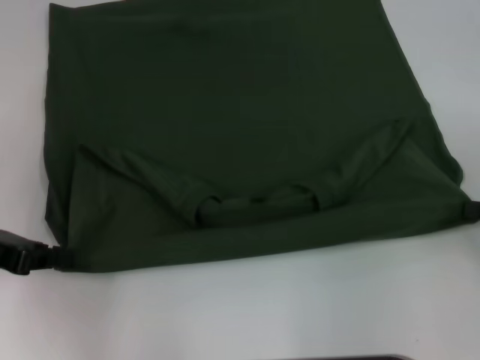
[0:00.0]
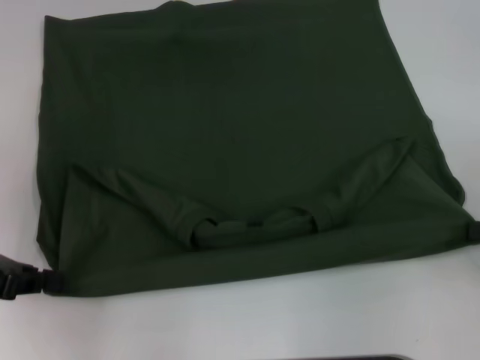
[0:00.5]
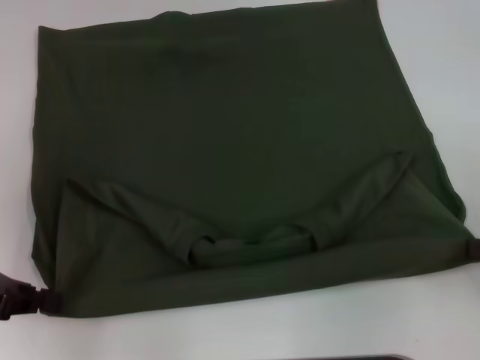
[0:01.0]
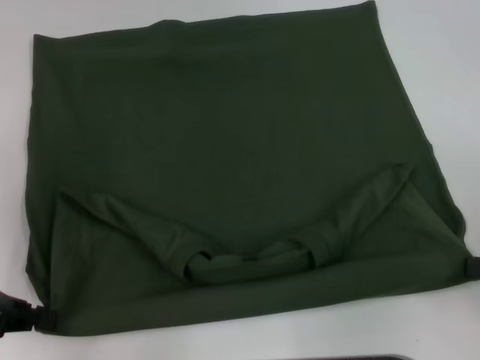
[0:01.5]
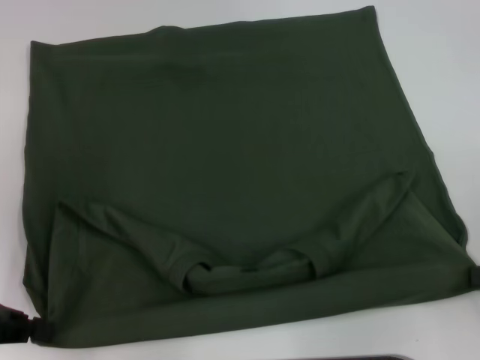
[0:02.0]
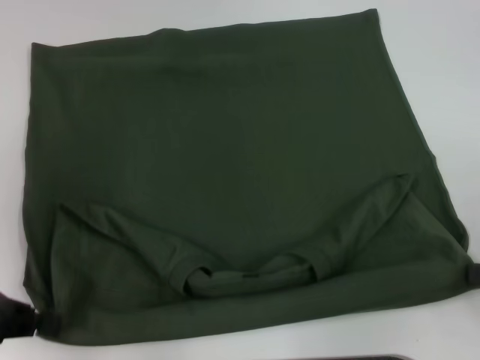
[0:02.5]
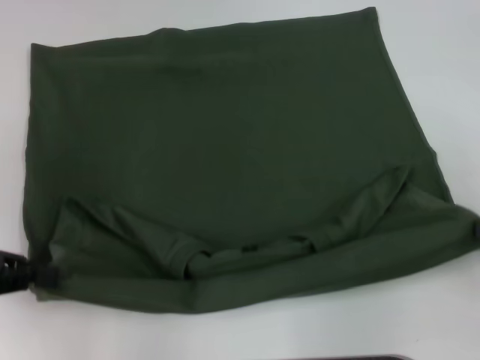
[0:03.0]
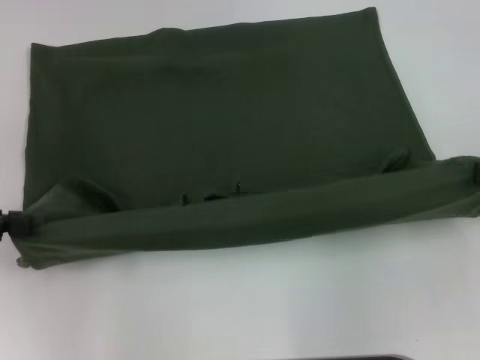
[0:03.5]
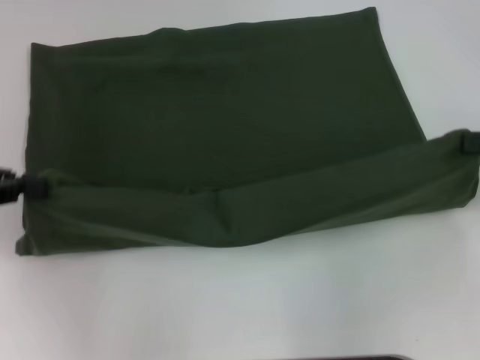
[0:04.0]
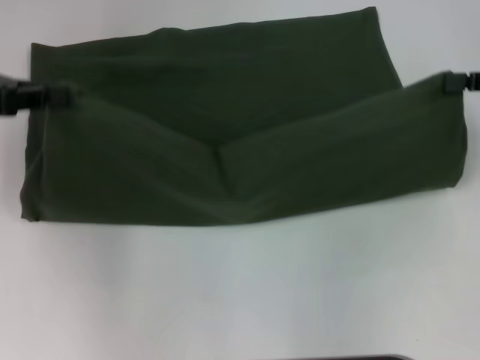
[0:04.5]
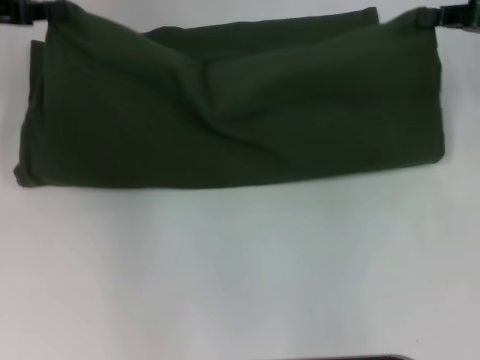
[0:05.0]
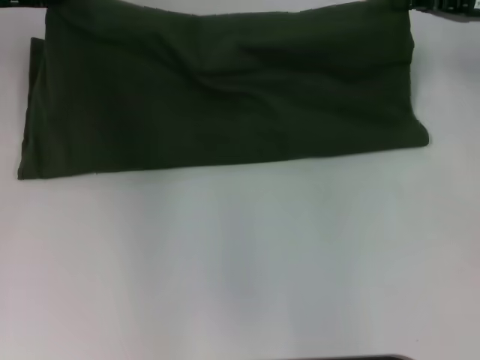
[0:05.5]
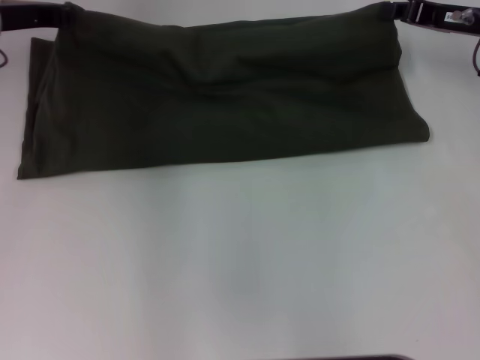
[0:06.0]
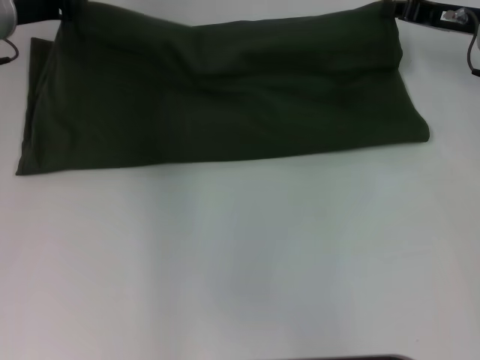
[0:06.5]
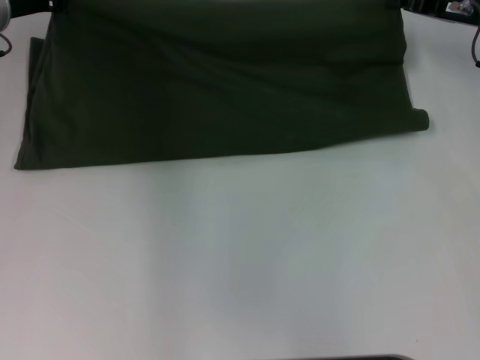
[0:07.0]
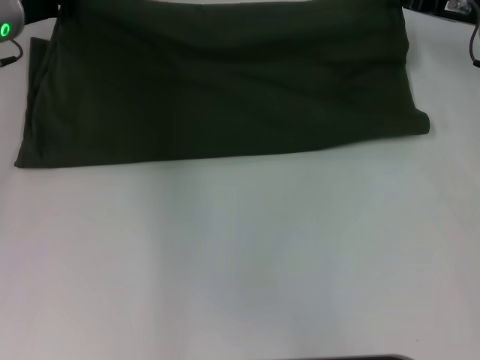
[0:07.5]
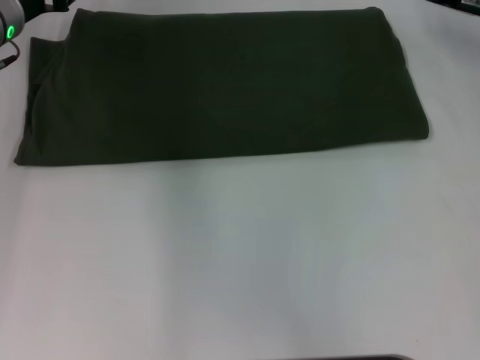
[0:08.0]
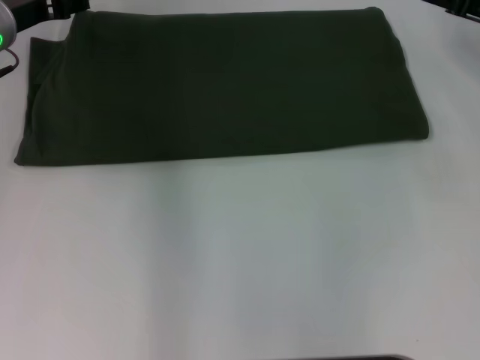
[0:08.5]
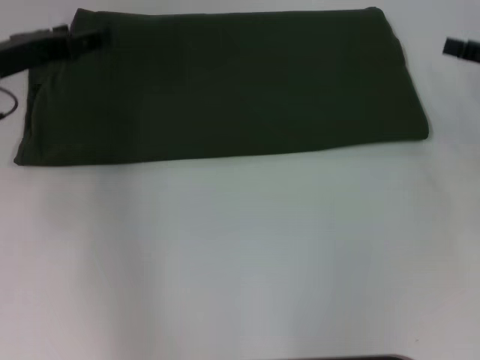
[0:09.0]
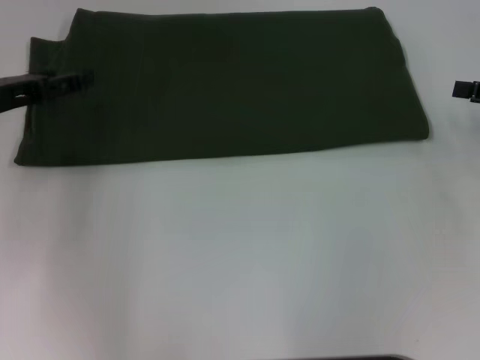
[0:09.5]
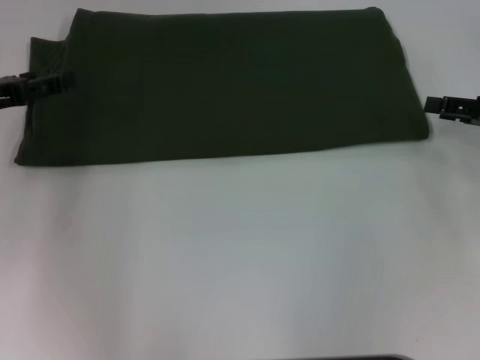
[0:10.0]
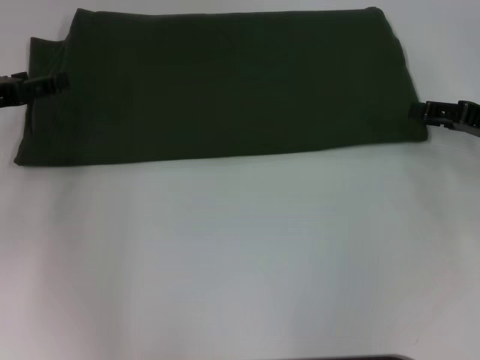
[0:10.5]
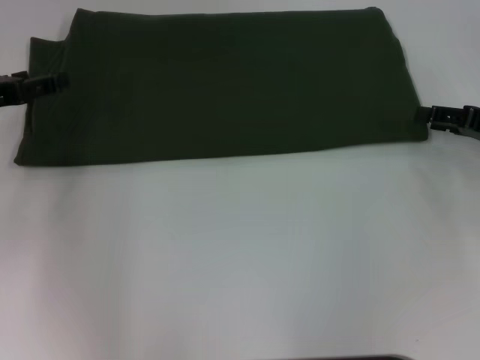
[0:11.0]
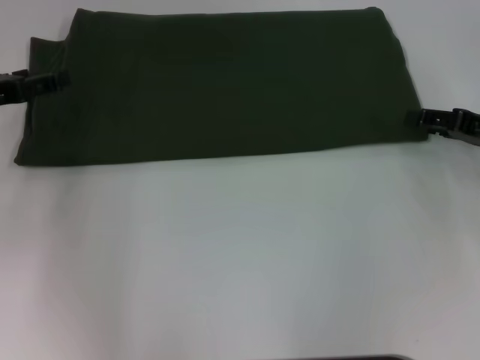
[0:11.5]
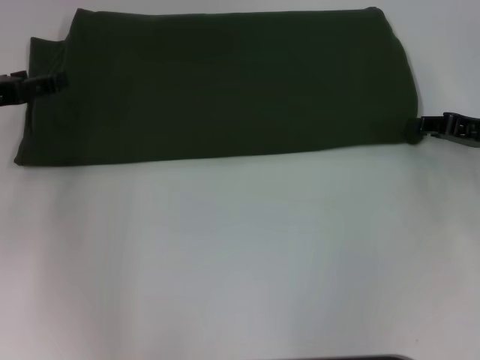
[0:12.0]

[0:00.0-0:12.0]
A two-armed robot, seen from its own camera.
Step, 0:00.0 to 0:02.5: Pull the clothes with your left hand.
Step, 0:00.0 to 0:02.5: Pull the clothes with your right hand.
Step, 0:03.0 to 0:08.0: Fold the clothes with your left hand.
Step, 0:03.0 to 0:08.0: Fold the clothes with your right hand.
0:00.0 to 0:02.0: The right gripper moves backward, approximately 5 cm.
0:02.0 to 0:04.0: The right gripper goes approximately 10 cm forward and upward; the left gripper travels upward and forward by some 10 cm.
0:04.0 to 0:06.0: The left gripper is displaced forward and to the right by approximately 20 cm, while the right gripper heads forward and to the left, covering about 15 cm.
0:06.0 to 0:08.0: The grippers make only small movements.
0:08.0 to 0:10.0: The left gripper goes some 15 cm backward and to the left, and opens up, while the right gripper shifts some 10 cm backward and to the right.
0:10.0 to 0:12.0: The grippers stay close to where they were, moving slightly.

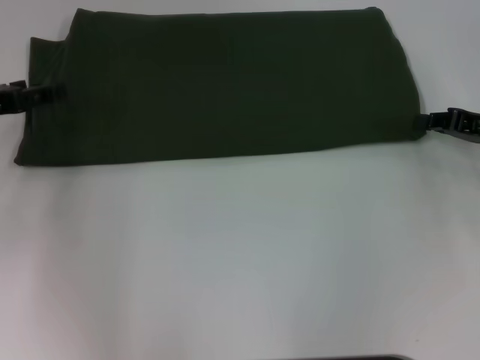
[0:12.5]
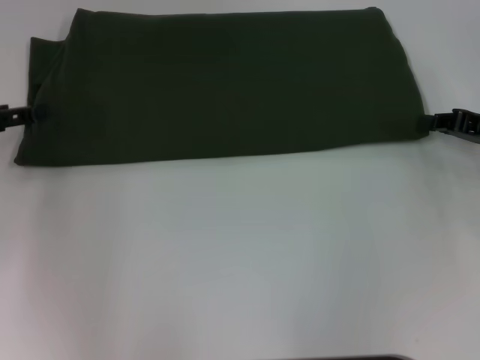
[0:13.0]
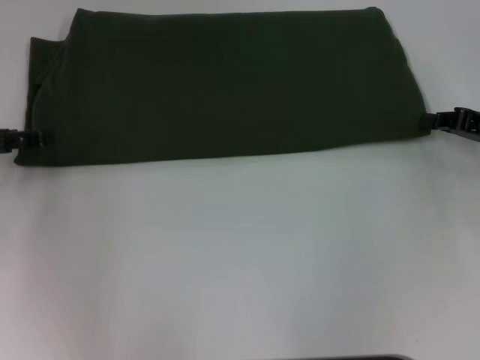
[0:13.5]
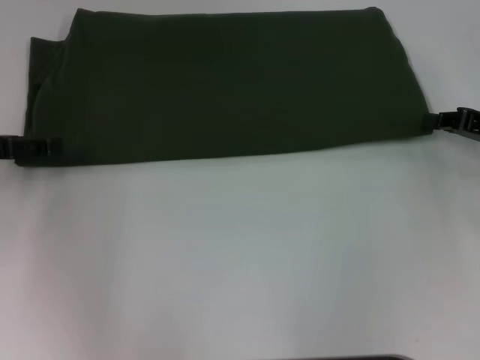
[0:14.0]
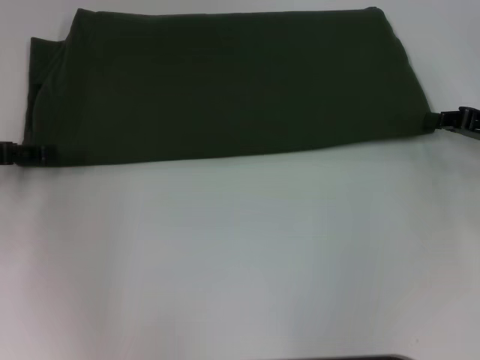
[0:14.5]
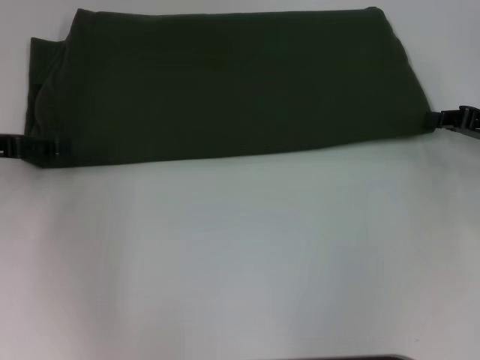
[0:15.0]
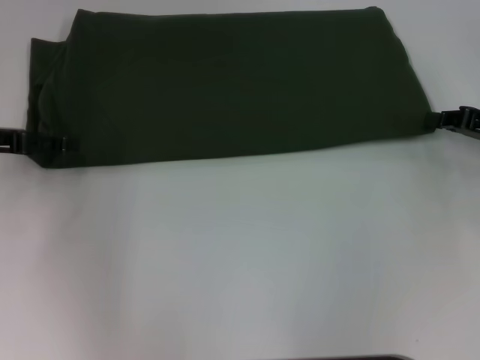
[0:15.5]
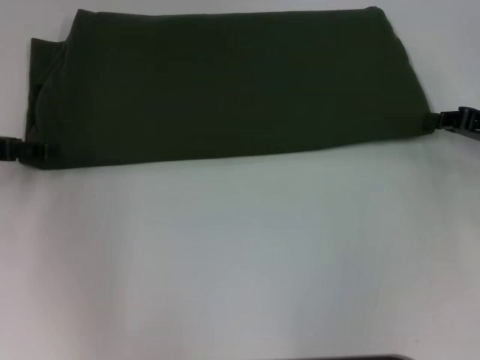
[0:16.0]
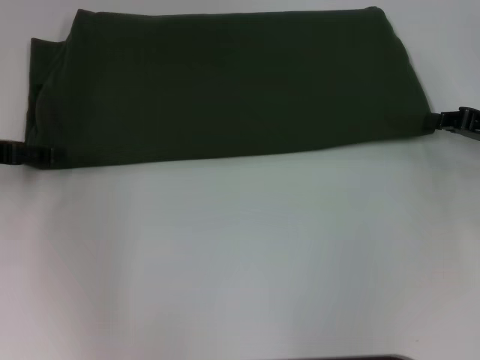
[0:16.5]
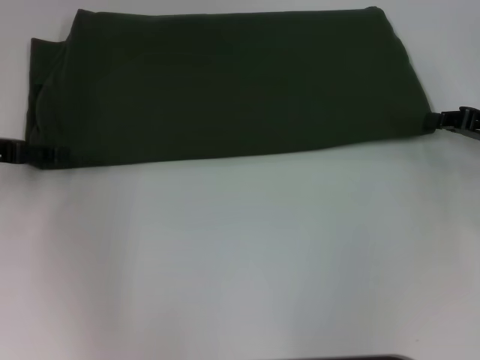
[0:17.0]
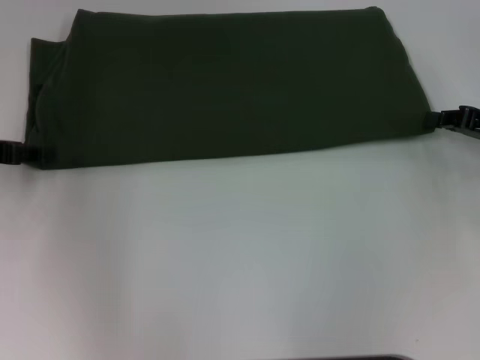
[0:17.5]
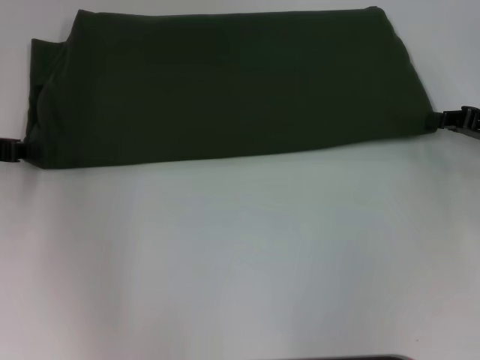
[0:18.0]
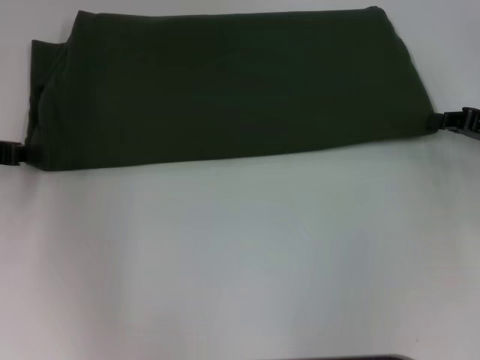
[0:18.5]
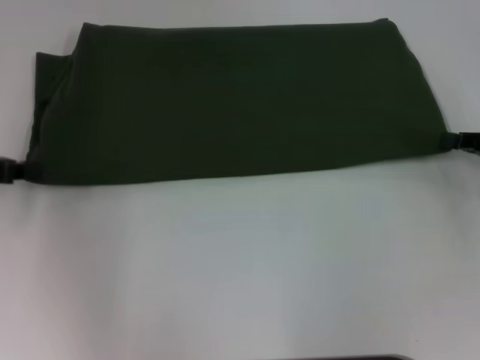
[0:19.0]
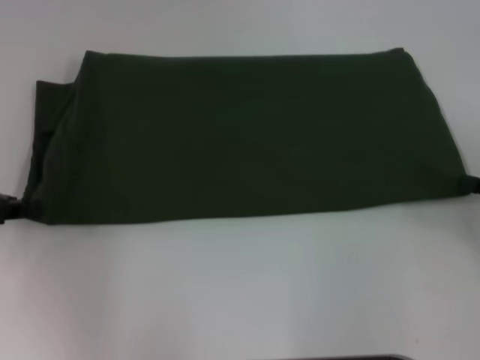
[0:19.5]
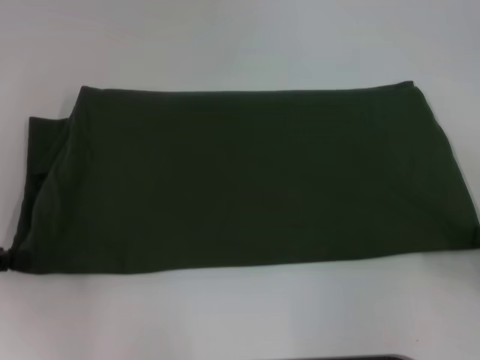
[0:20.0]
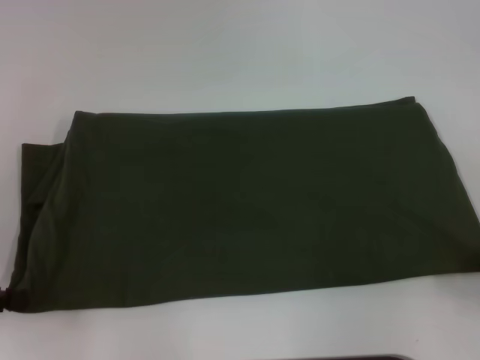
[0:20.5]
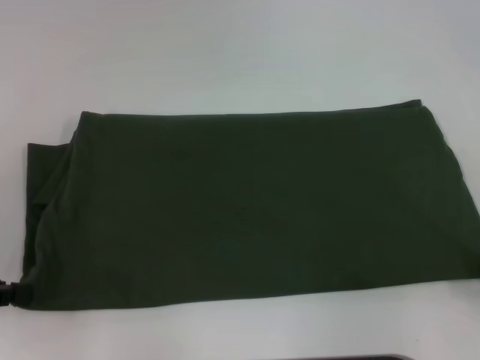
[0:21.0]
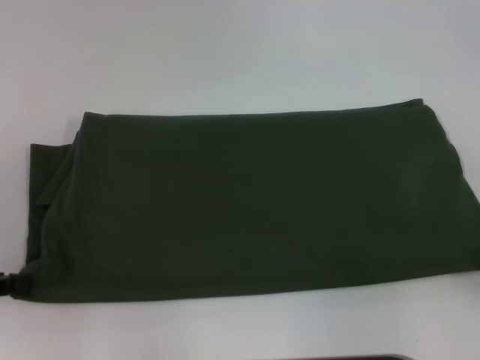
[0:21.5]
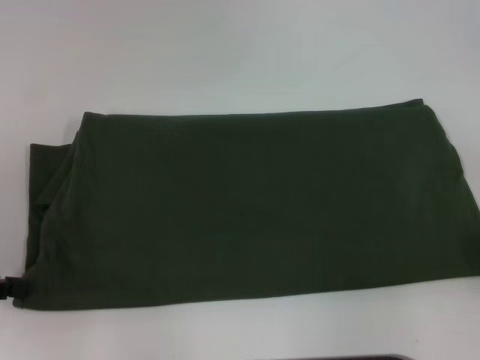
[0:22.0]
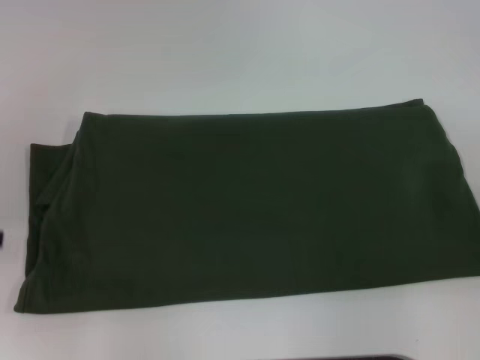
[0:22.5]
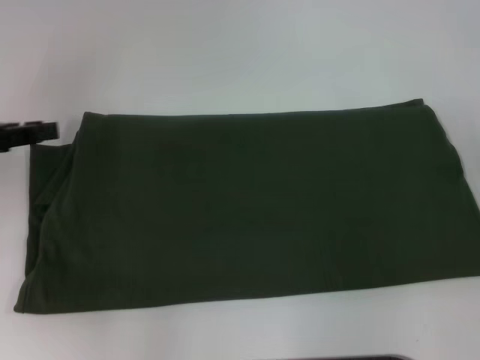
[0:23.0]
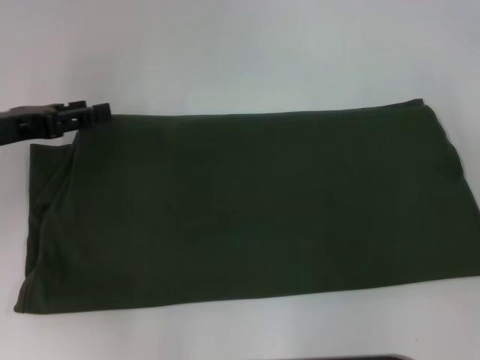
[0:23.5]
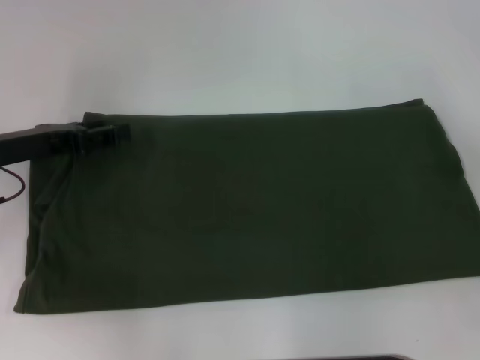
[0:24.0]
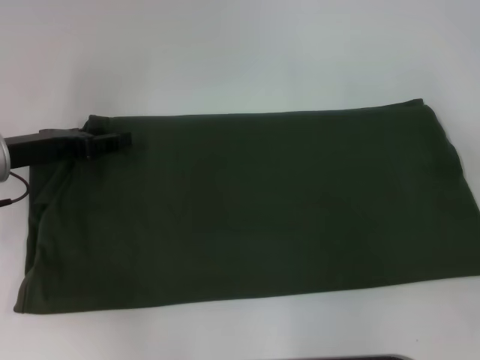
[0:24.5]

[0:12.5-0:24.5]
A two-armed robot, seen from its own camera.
Step, 0:12.5 to 0:22.0: Pull the clothes with your left hand.
Step, 0:12.5 to 0:22.0: Pull the clothes with your right hand.
0:12.5 to 0:14.5: The grippers move only a little.
0:16.5 to 0:18.5: The left gripper closes.
0:18.5 to 0:20.5: The grippers both shift backward by approximately 15 cm.
0:20.5 to 0:22.5: The right gripper changes place by some 5 cm, and opens up.
0:22.5 to 0:24.5: The left gripper heads to the right, forward and downward, covering roughly 15 cm, and opens its fingers.

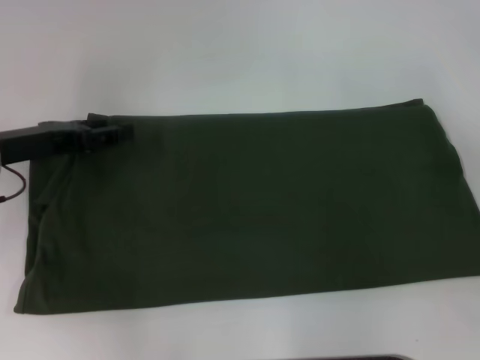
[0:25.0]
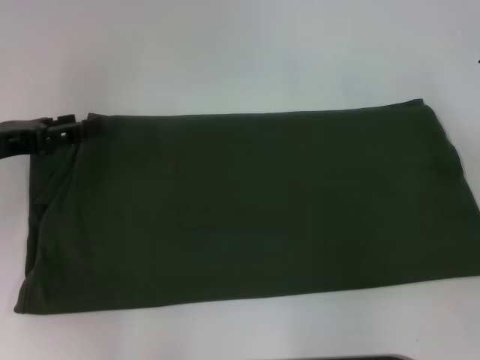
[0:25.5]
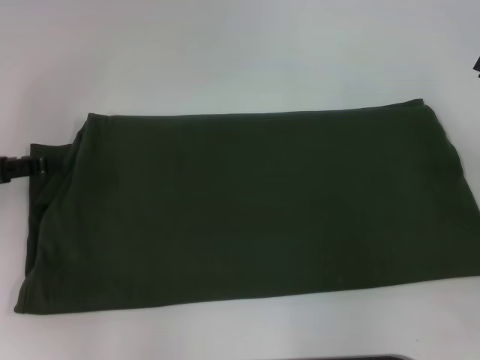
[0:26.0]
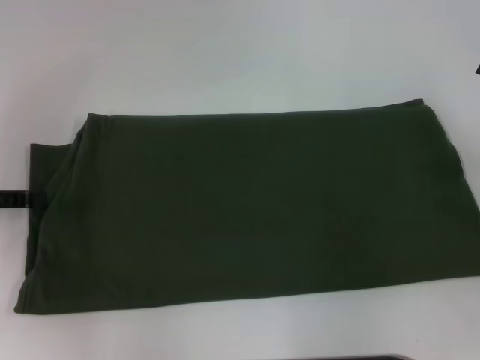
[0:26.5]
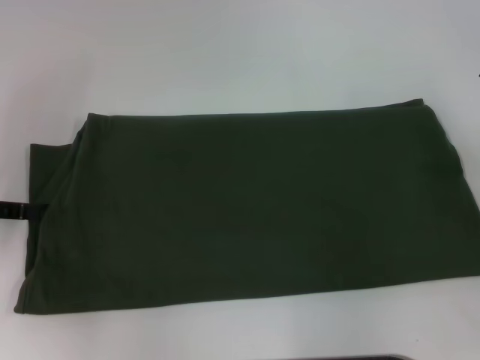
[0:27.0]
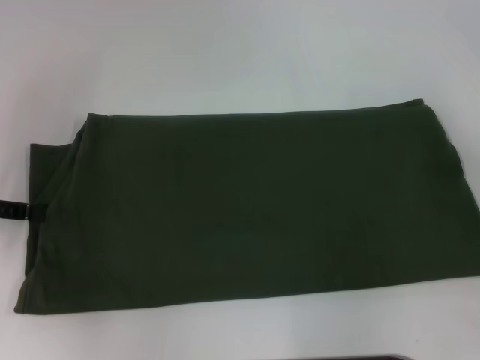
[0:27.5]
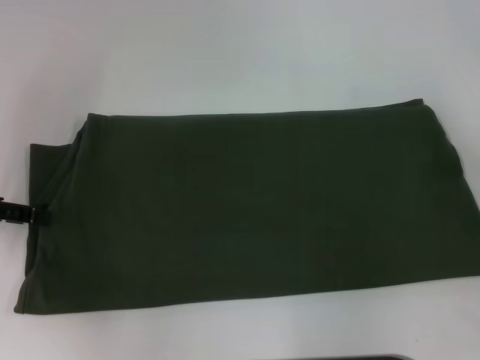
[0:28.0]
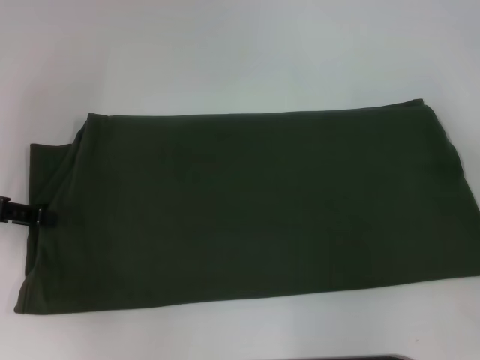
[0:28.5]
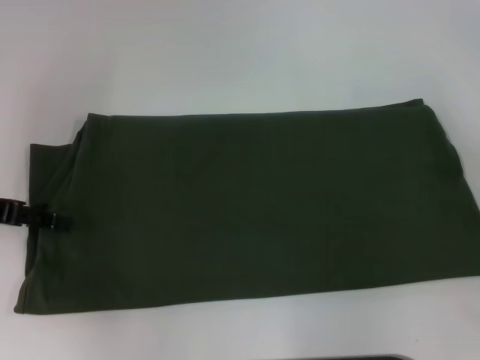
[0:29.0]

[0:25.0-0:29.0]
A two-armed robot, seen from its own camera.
0:25.0 to 0:27.0: The left gripper moves to the left, roughly 10 cm.
